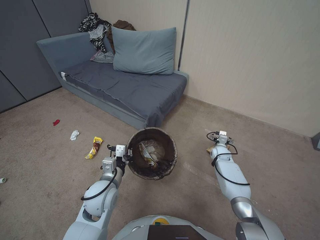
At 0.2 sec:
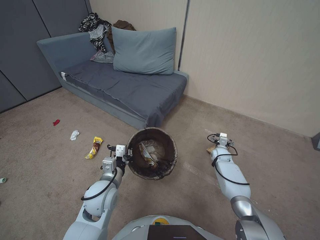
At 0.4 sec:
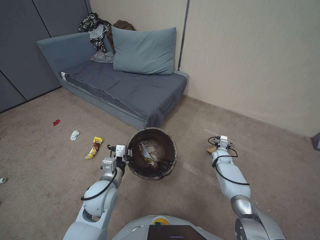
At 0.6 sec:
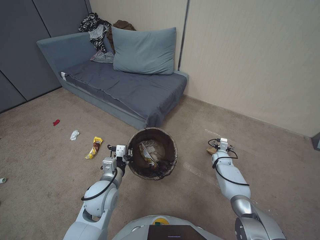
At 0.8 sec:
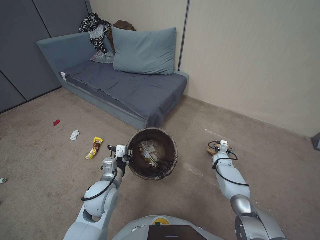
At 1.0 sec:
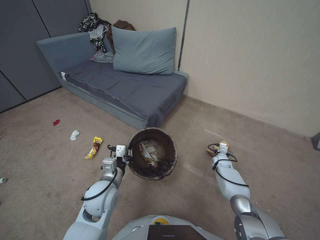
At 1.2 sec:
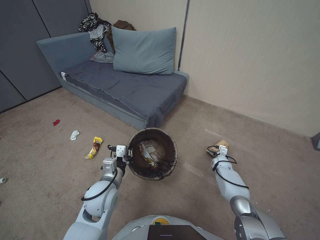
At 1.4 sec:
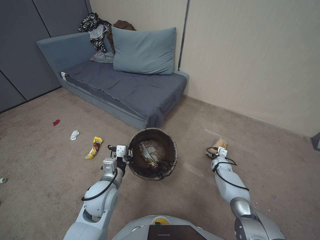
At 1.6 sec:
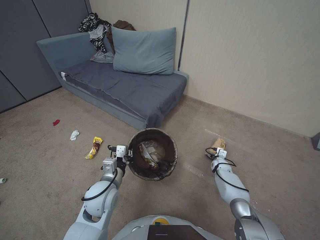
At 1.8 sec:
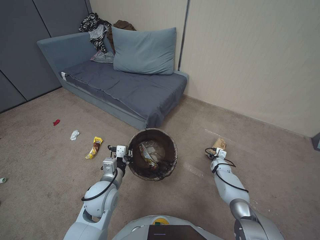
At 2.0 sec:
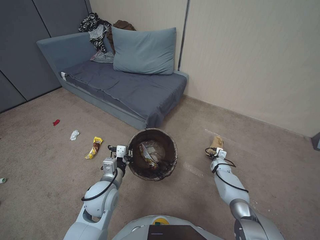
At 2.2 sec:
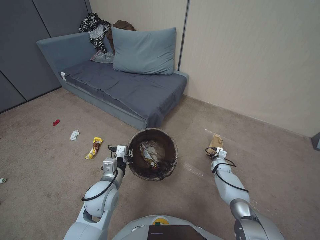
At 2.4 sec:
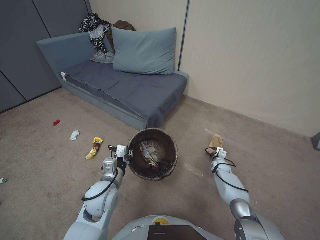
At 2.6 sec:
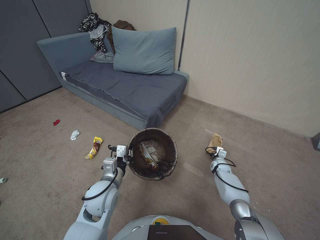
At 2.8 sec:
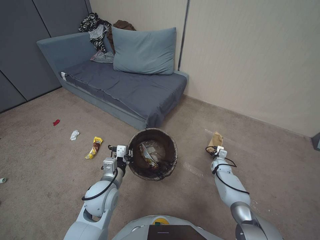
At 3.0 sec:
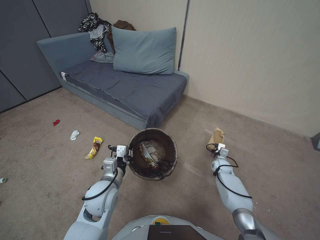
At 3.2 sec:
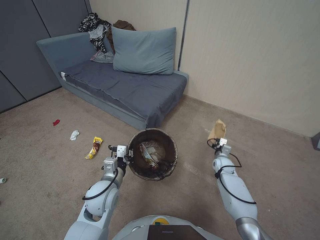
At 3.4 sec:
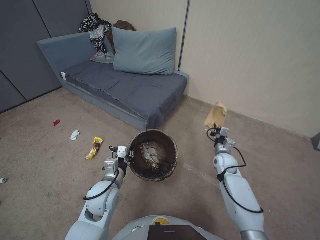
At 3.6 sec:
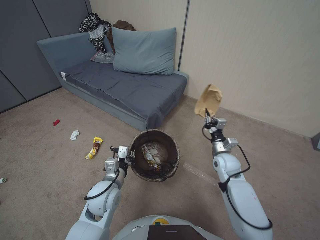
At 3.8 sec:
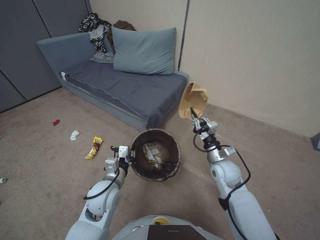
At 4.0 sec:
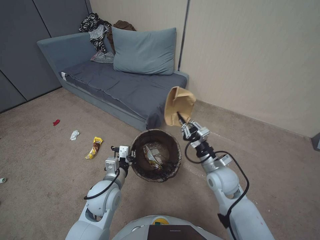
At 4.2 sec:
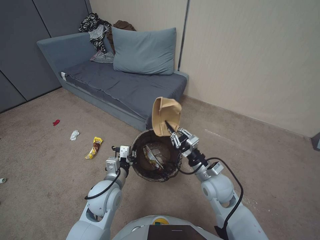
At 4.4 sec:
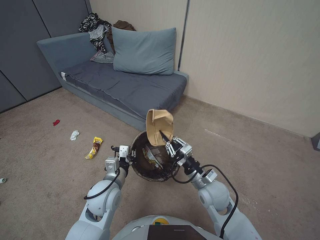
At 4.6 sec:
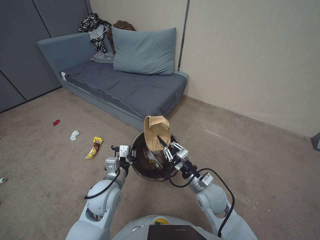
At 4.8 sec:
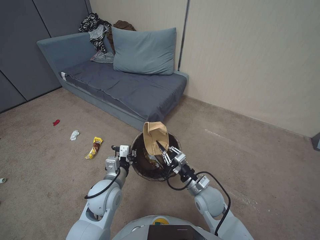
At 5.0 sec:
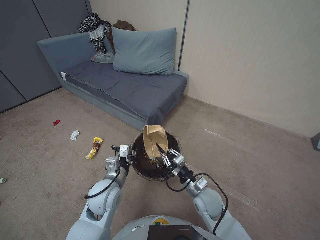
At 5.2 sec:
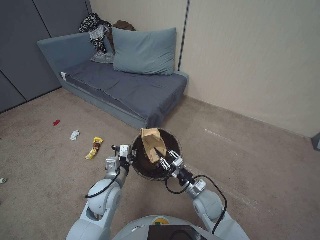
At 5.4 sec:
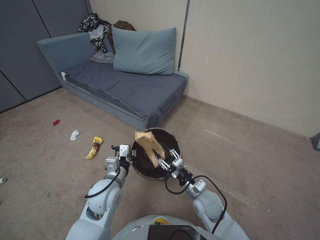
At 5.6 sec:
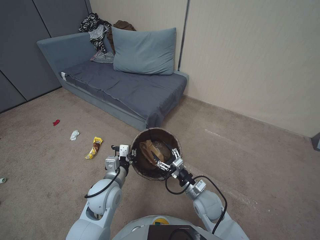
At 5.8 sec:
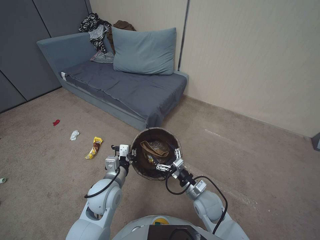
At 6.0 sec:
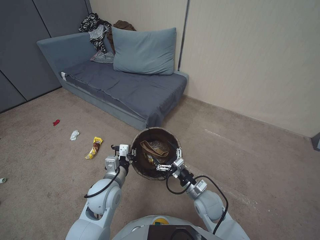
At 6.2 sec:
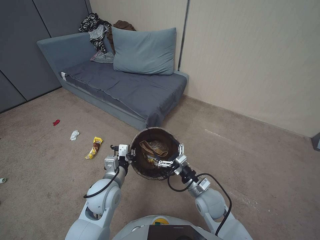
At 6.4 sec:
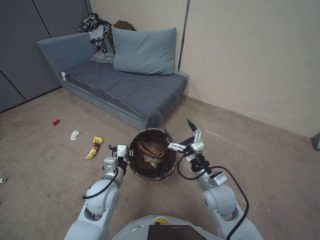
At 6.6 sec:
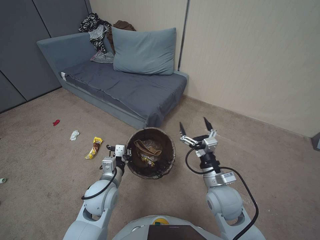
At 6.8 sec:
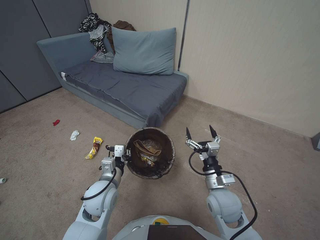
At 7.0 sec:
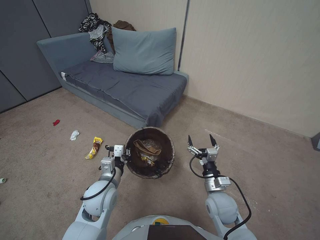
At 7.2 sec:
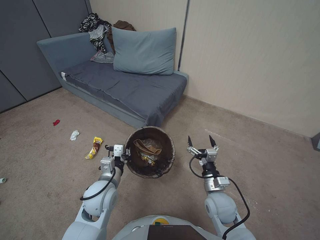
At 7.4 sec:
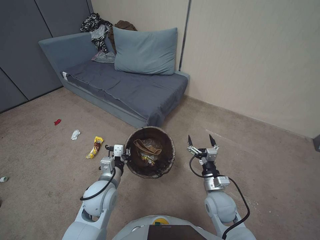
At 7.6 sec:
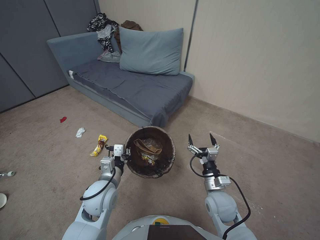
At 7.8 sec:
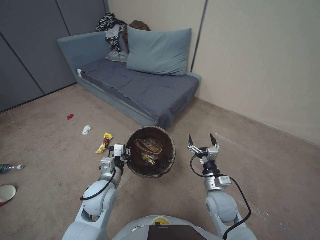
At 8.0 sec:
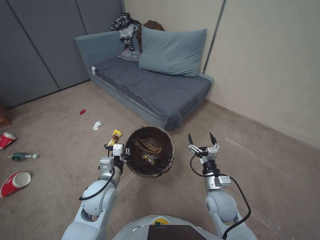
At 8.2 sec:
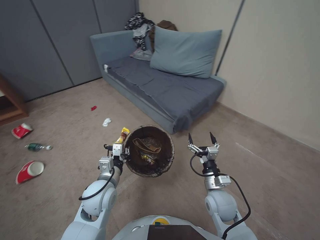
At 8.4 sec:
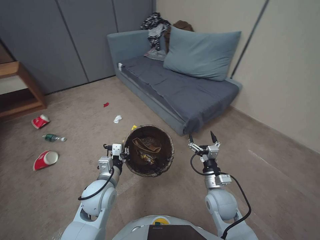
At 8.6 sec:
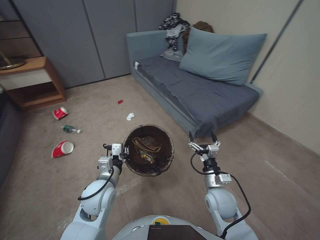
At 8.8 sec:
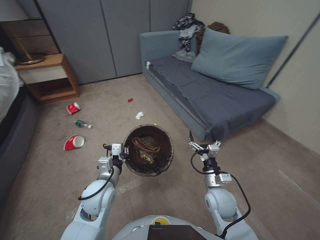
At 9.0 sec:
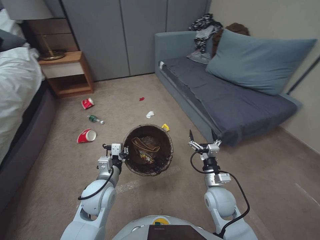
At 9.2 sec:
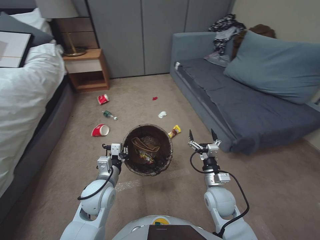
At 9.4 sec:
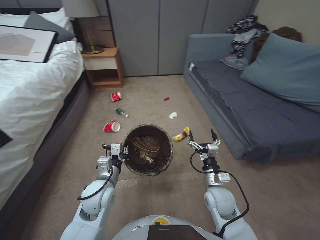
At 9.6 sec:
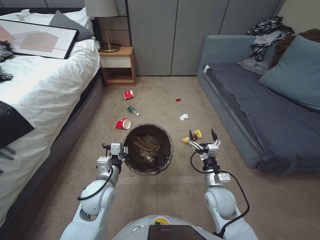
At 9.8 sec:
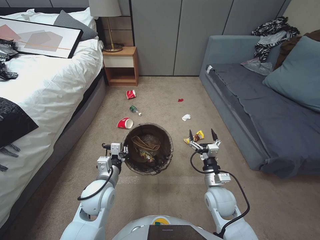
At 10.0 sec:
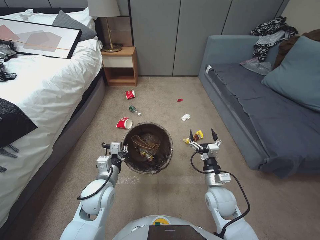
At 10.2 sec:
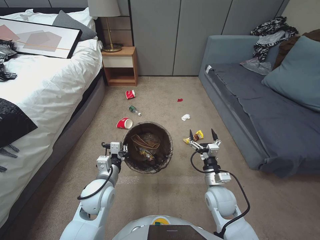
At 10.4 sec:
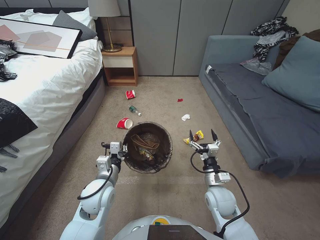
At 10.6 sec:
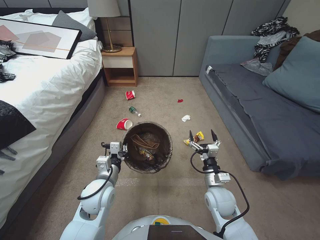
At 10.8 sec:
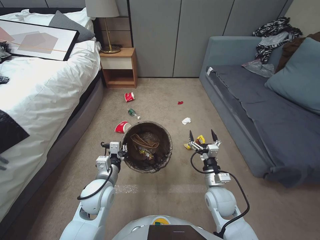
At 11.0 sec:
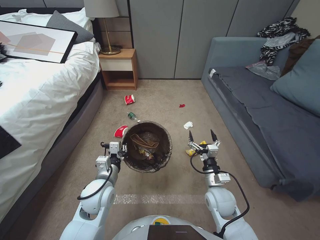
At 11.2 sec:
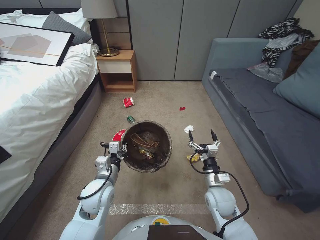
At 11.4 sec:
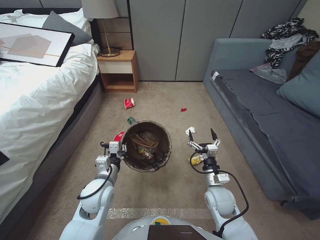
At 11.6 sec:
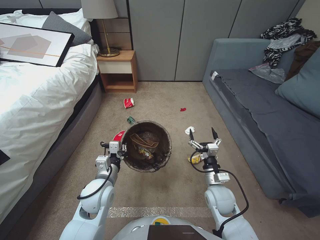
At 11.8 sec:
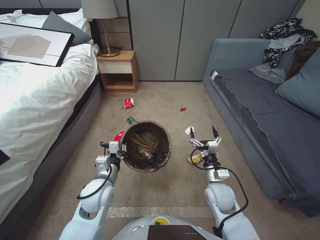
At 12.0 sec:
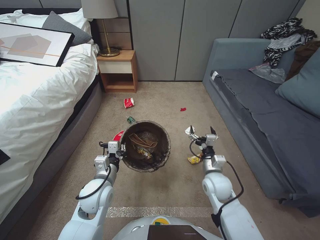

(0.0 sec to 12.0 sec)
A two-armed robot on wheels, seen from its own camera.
Task of the whole recording: Pick up the trash bin, then pick up the garbage from the floor and place it into the trash bin.
0.0 sec - 1.6 sec: The right gripper moves downward, some 10 cm.
1.6 sec - 3.0 sec: The right gripper closes.
3.0 sec - 4.4 sec: The right gripper travels upward, to the left and backward by about 30 cm.
4.4 sec - 6.0 sec: The right gripper moves downward, roughly 10 cm, and opens.
6.0 sec - 7.6 sec: The right gripper travels upward and back again, about 10 cm each way.

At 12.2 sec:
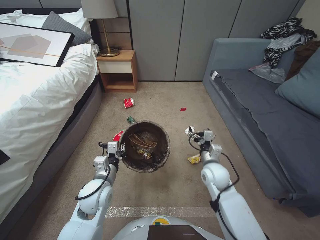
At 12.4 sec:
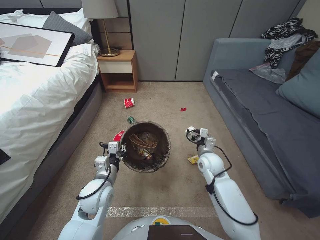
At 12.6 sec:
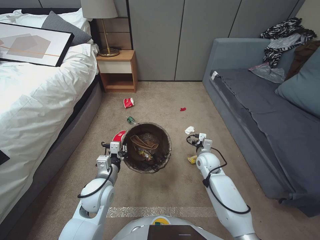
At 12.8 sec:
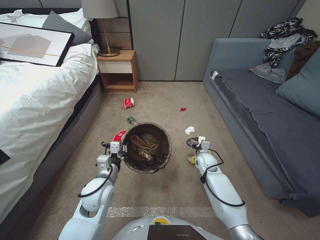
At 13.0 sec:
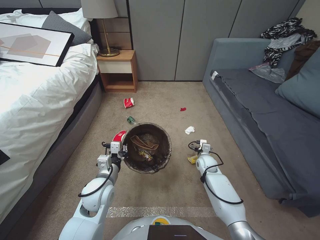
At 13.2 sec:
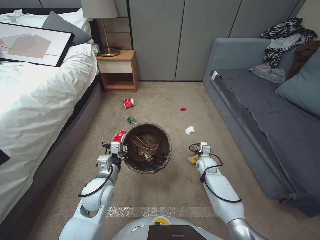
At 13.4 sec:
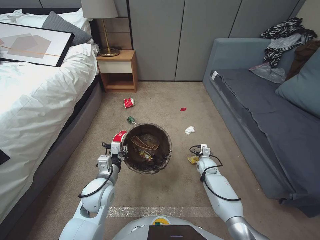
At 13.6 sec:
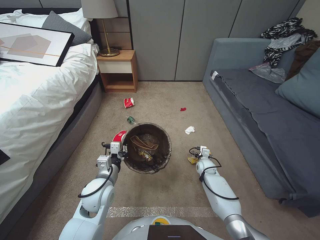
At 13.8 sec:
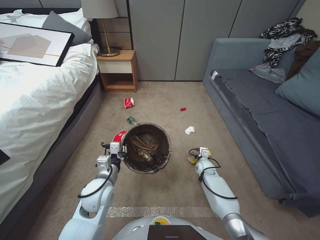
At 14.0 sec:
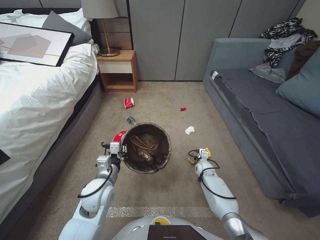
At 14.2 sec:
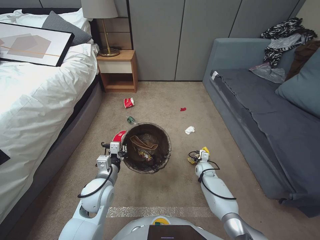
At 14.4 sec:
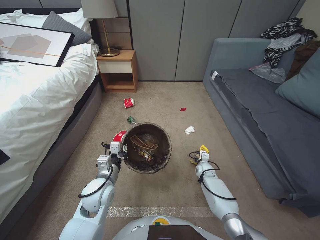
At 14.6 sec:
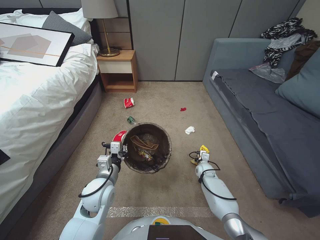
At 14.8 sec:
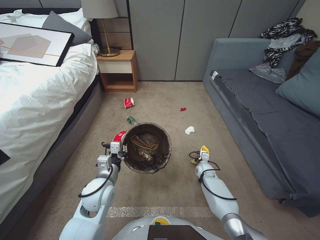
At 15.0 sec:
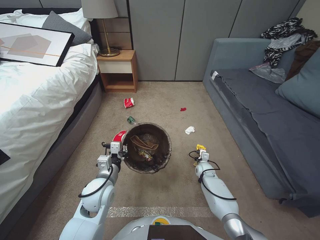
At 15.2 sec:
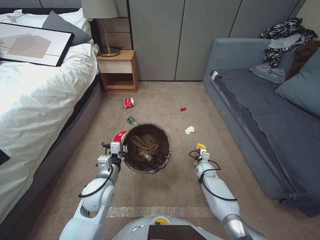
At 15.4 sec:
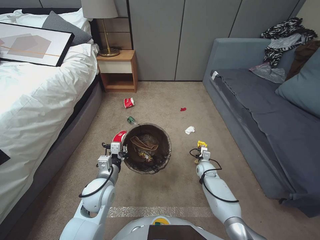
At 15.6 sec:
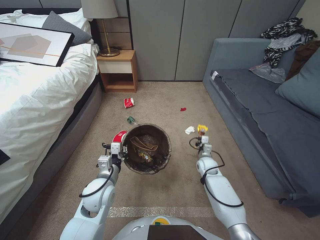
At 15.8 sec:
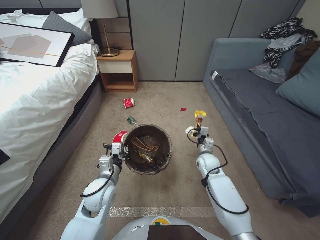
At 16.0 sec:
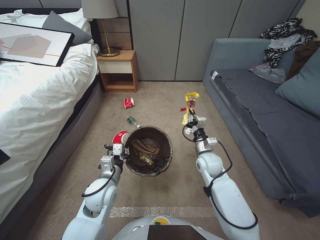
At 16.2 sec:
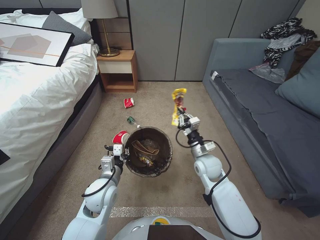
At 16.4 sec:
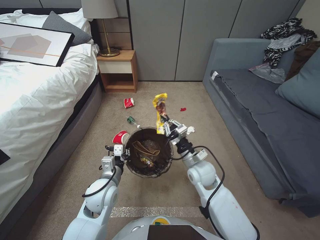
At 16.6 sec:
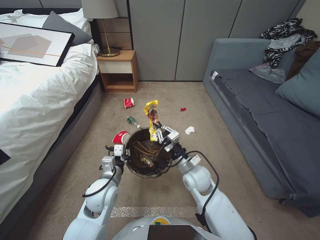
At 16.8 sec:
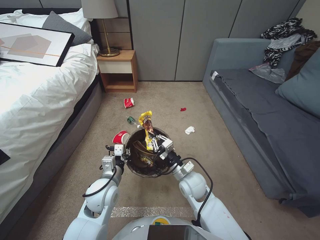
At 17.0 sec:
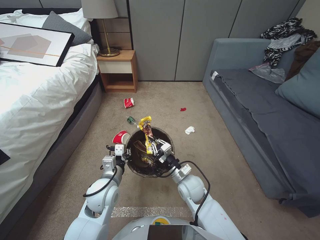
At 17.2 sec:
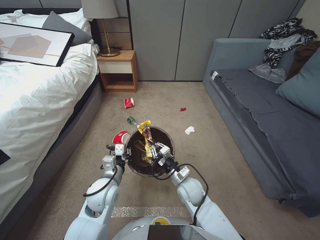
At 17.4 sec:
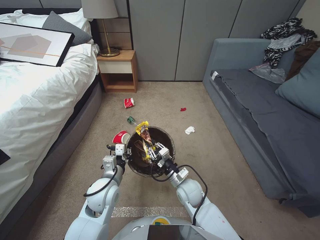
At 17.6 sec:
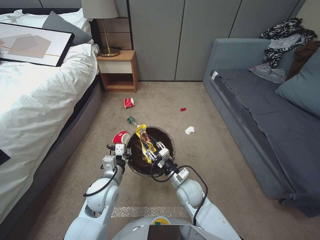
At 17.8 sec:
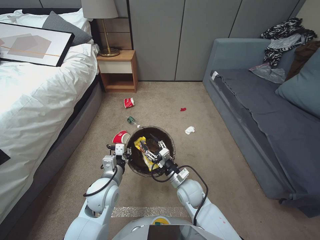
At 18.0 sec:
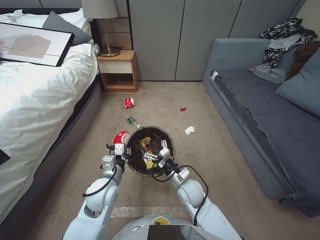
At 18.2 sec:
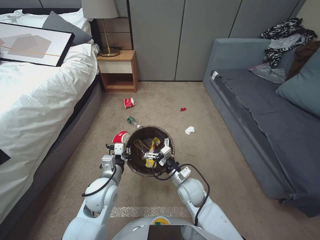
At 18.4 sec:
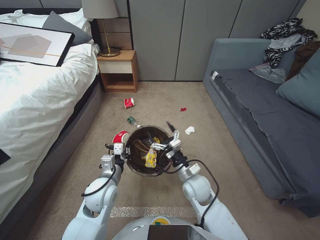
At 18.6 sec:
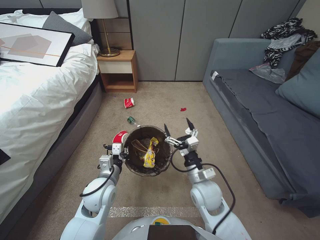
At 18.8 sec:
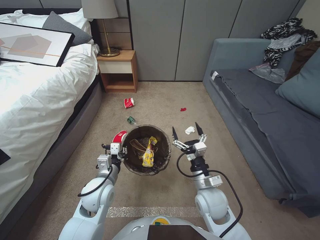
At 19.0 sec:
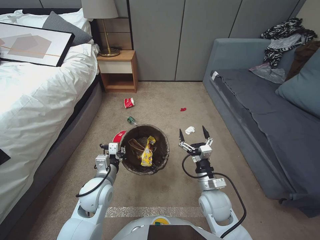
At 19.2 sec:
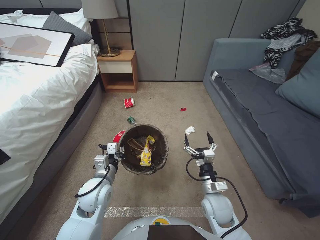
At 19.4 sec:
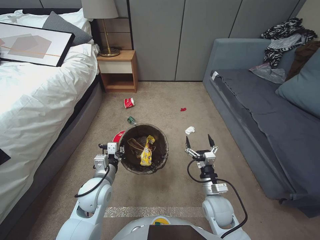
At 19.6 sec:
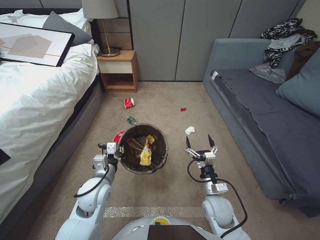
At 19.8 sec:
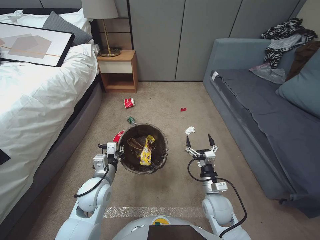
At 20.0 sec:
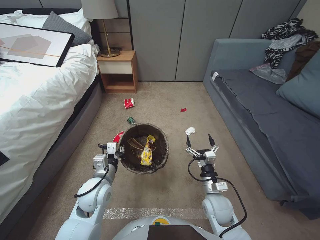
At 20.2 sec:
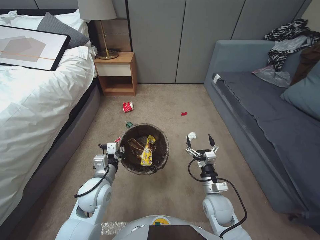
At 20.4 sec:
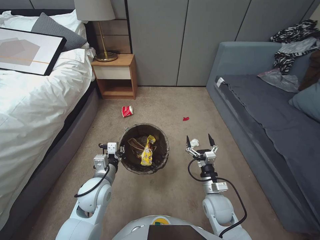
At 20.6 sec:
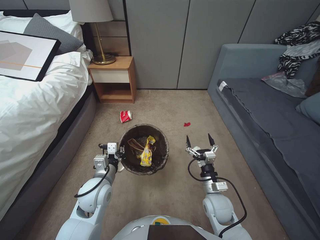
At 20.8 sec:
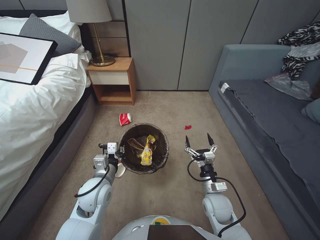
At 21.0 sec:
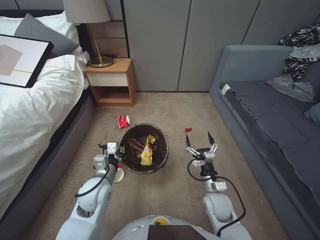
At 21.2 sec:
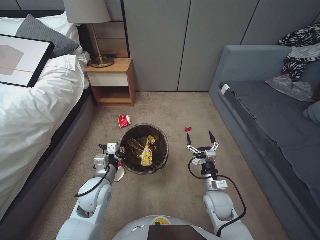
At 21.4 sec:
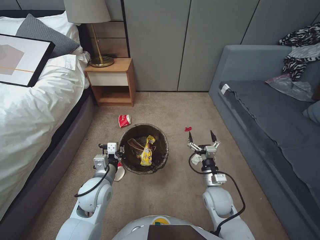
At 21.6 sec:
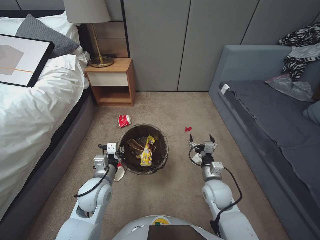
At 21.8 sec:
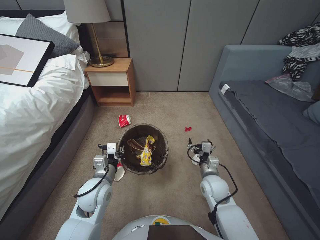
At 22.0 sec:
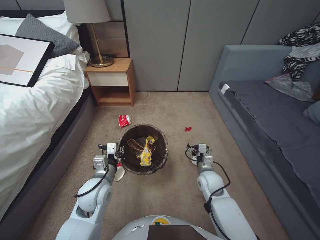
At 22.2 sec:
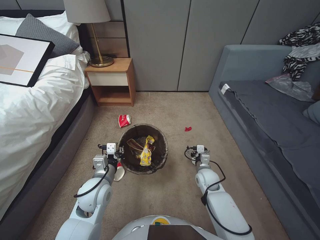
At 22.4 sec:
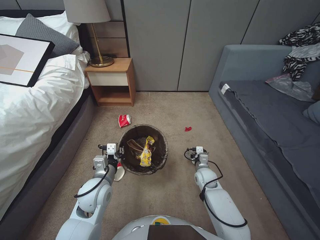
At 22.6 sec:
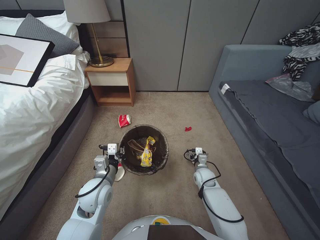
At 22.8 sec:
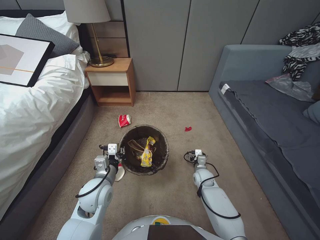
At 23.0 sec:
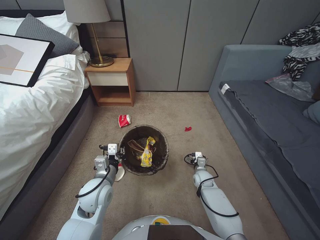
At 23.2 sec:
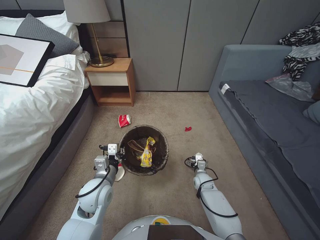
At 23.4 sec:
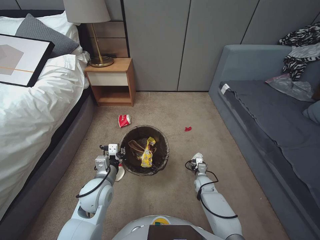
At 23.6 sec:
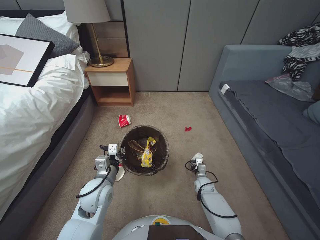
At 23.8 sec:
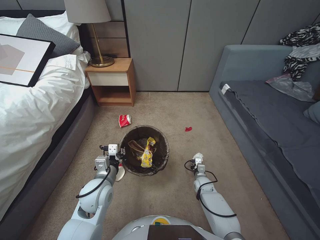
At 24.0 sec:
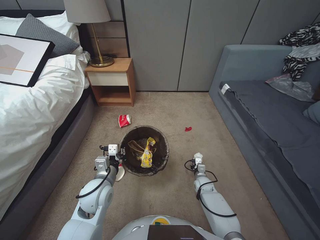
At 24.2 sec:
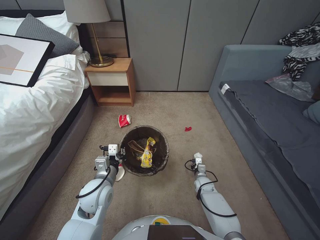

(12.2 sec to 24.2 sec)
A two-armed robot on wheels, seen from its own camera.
Task of the whole recording: Pick up the trash bin, then pick up the garbage from the floor and place it into the trash bin.
12.2 sec - 13.8 sec: The right gripper shifts some 20 cm forward and downward.
13.8 sec - 15.2 sec: The right gripper closes its fingers.
15.2 sec - 16.6 sec: The right gripper heads upward, to the left and backward, covering some 25 cm.
16.6 sec - 18.2 sec: The right gripper heads downward, covering some 5 cm, and opens.
18.2 sec - 19.8 sec: The right gripper shifts approximately 10 cm to the right and backward.
21.2 sec - 22.6 sec: The right gripper heads forward and downward, covering about 15 cm.
22.6 sec - 24.2 sec: The right gripper goes approximately 10 cm downward, and closes up.
